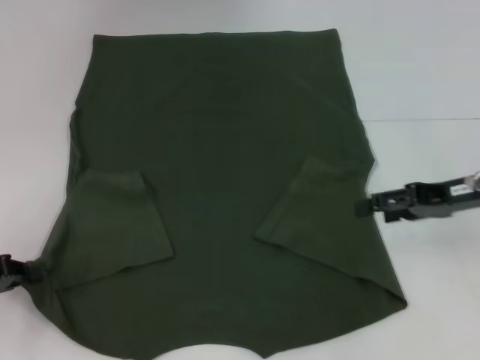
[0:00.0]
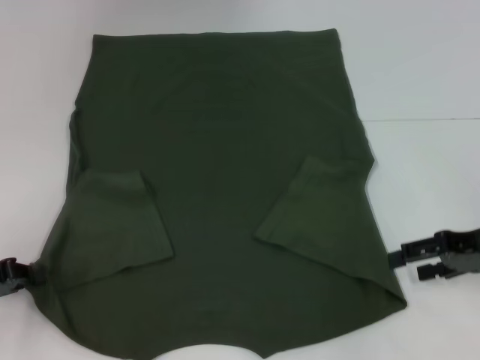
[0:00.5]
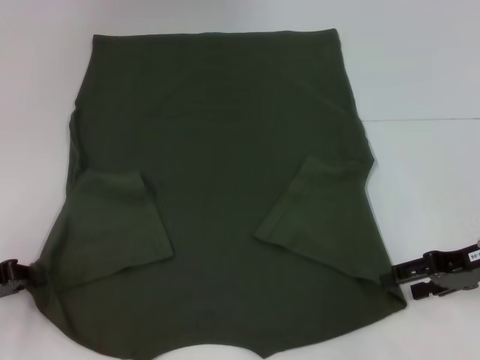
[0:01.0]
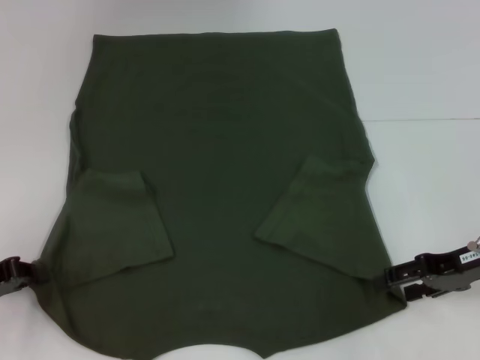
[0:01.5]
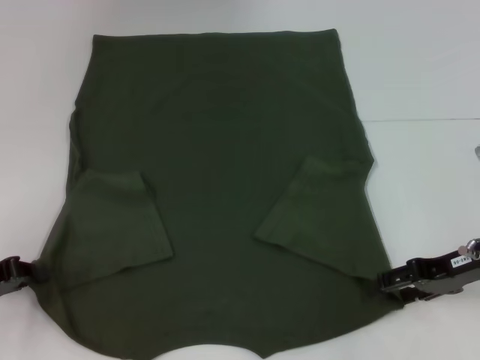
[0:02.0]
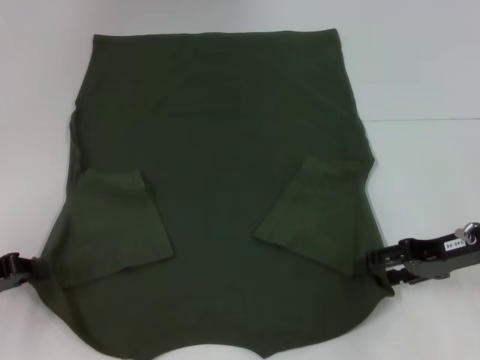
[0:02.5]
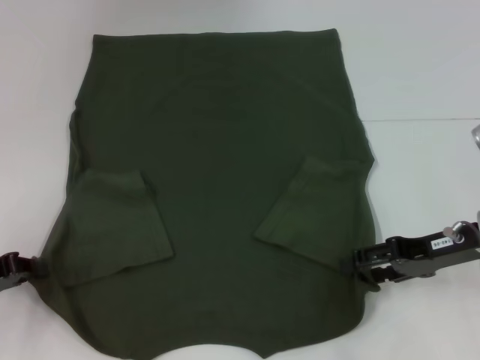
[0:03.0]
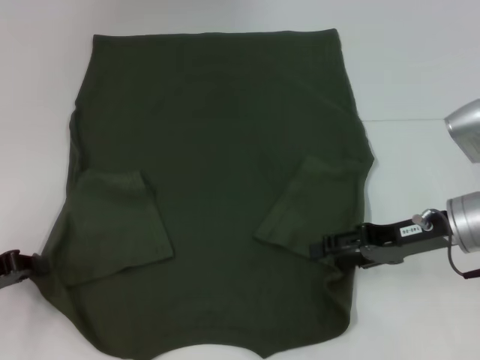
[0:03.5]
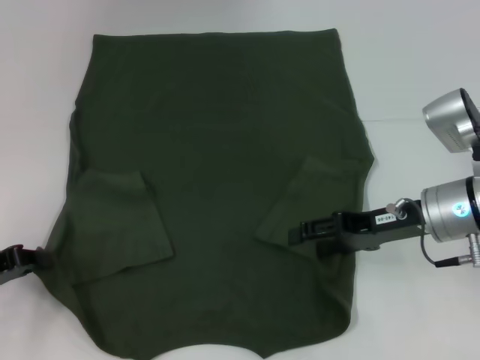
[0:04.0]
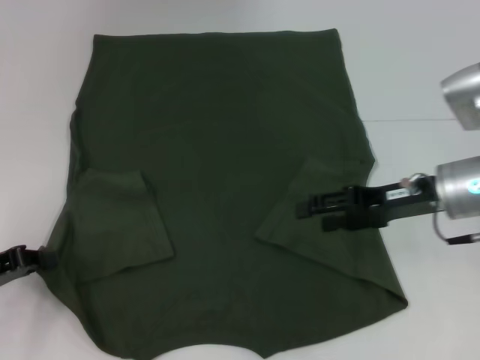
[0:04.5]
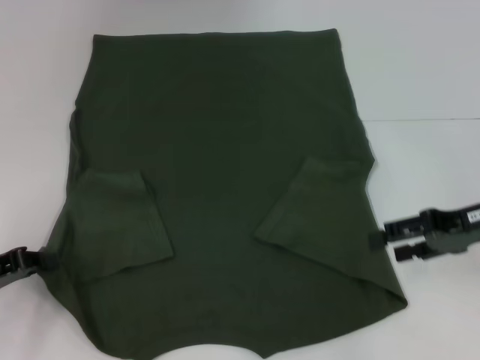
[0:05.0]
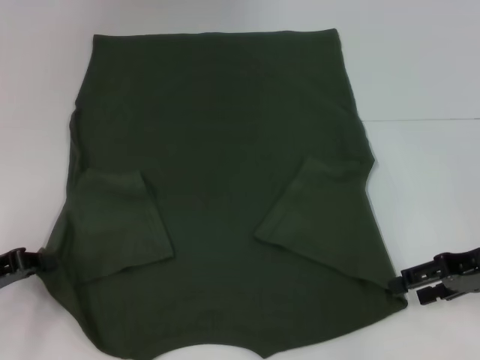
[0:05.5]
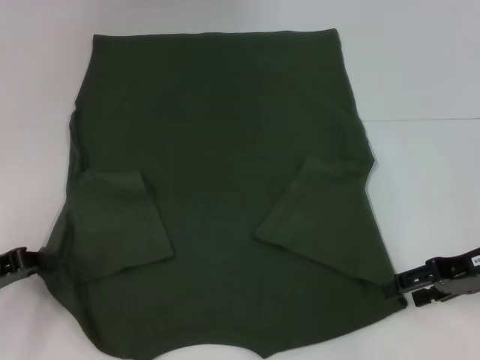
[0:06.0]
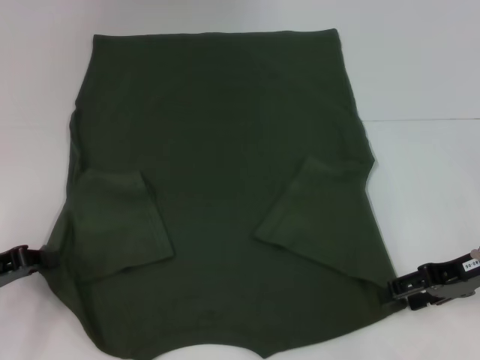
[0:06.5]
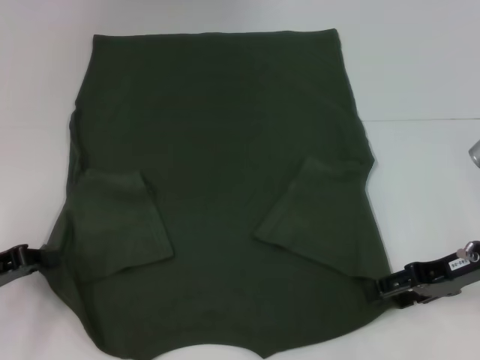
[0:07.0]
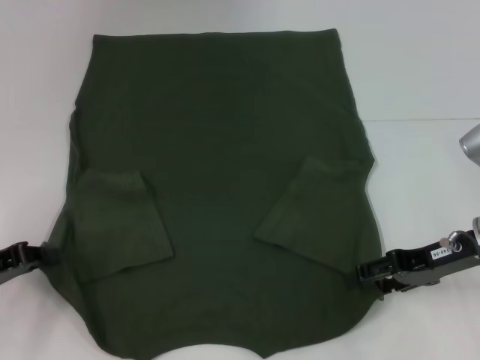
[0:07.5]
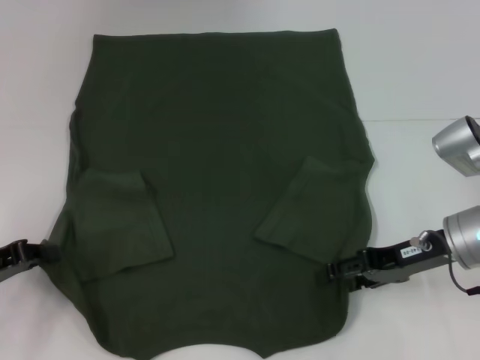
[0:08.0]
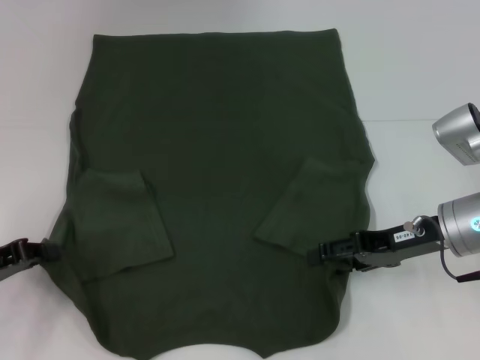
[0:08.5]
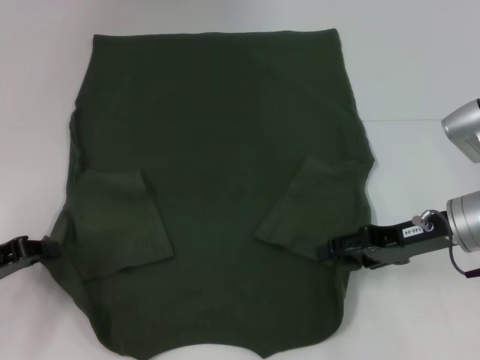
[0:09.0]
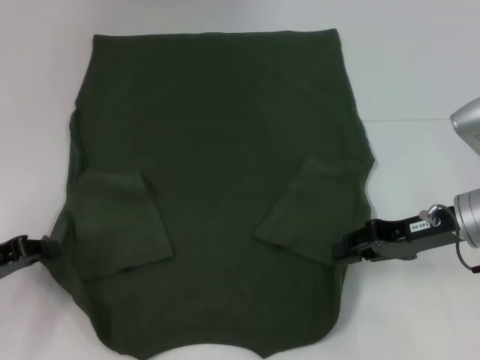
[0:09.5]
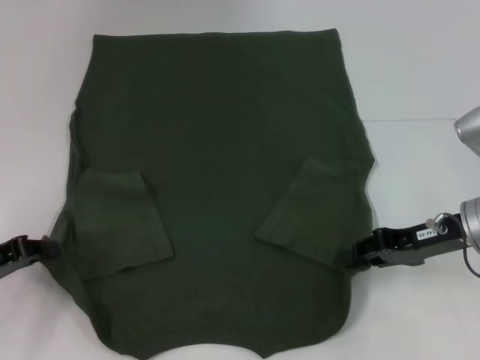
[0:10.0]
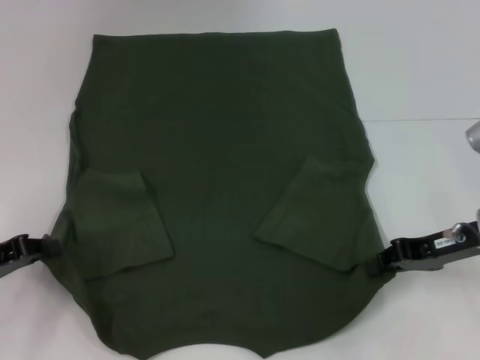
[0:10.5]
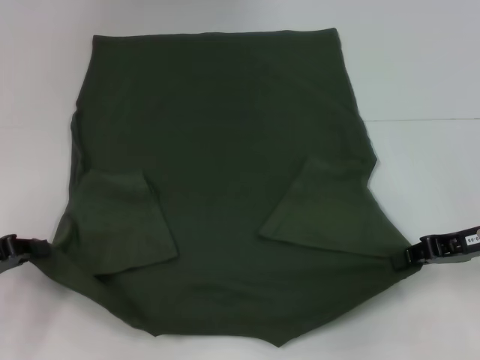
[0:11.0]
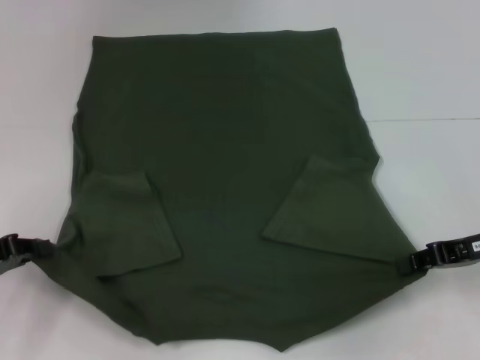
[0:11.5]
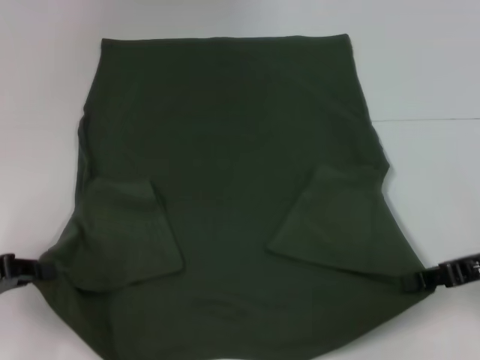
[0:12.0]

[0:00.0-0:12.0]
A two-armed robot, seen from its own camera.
Step, 0:01.0 to 0:08.5: Grab the bottom right corner with your right hand.
0:00.0 to 0:02.0: The right gripper changes place by about 5 cm.
0:02.0 to 0:04.0: The right gripper goes some 5 cm to the left.
0:04.0 to 0:06.0: The right gripper travels to the right by about 10 cm.
0:06.0 to 0:08.0: The right gripper is displaced to the left by some 5 cm.
0:08.0 to 0:10.0: The right gripper closes its fingers.
0:10.0 to 0:12.0: The right gripper shifts roughly 5 cm to the right.

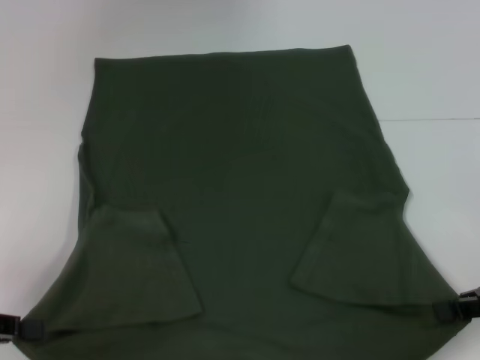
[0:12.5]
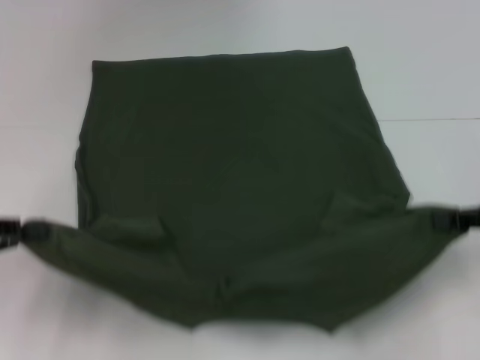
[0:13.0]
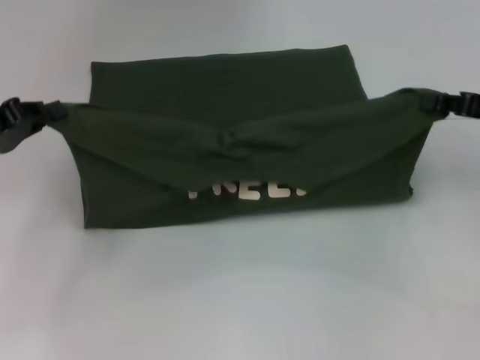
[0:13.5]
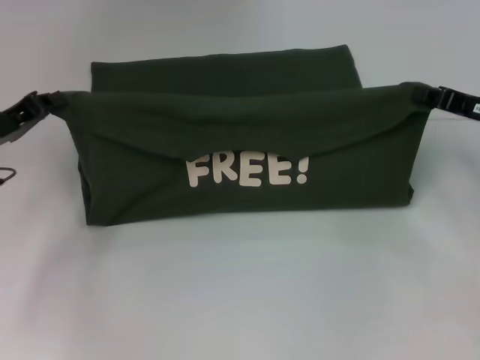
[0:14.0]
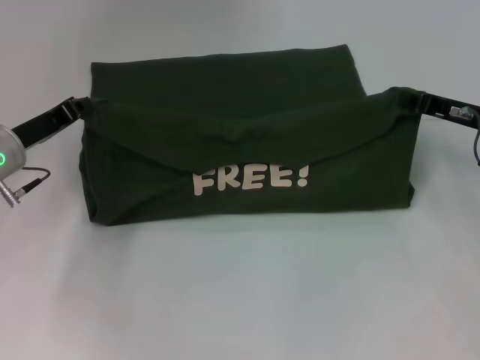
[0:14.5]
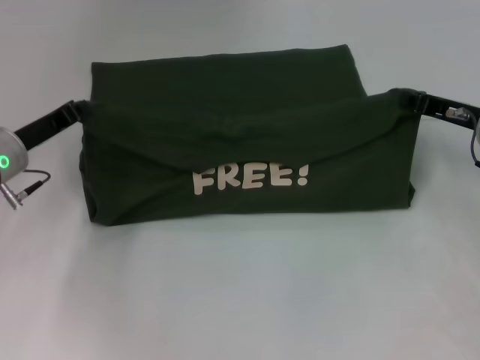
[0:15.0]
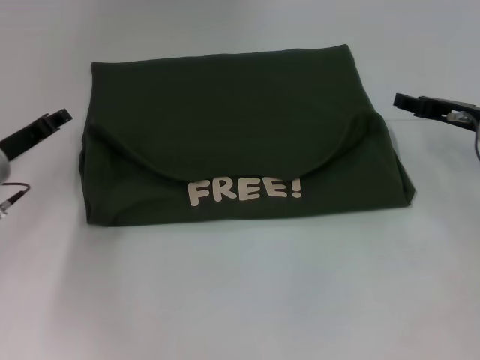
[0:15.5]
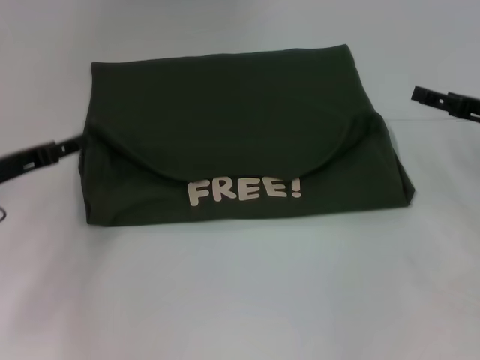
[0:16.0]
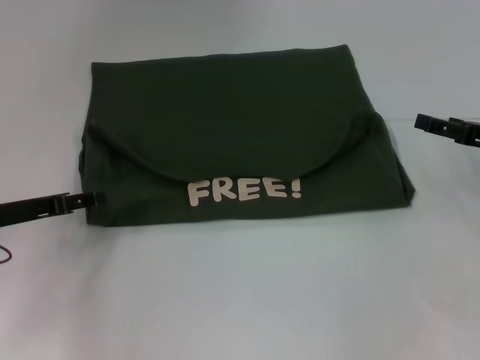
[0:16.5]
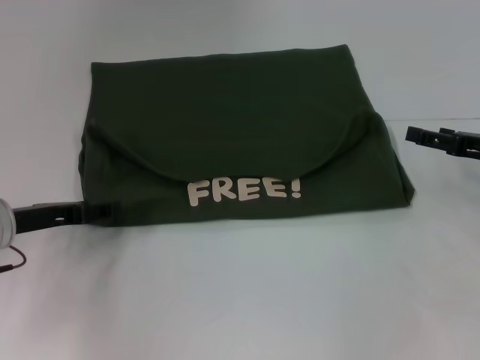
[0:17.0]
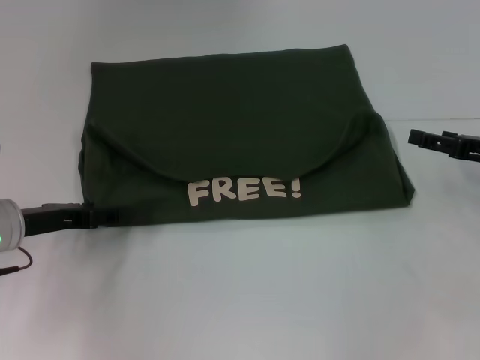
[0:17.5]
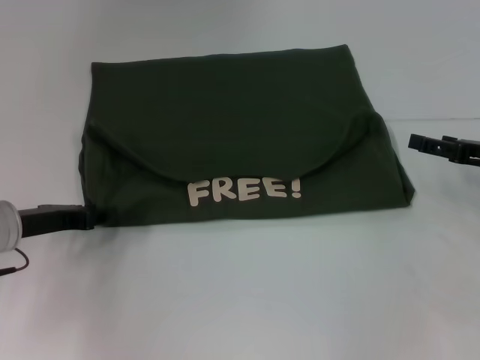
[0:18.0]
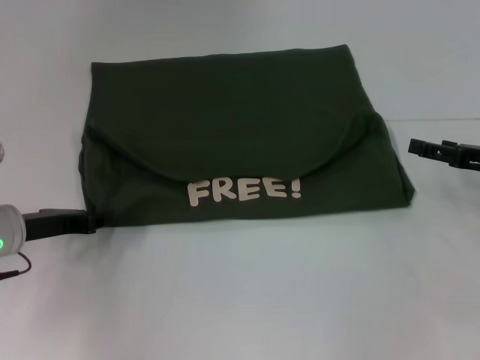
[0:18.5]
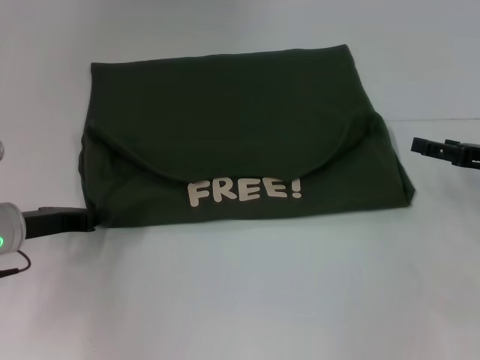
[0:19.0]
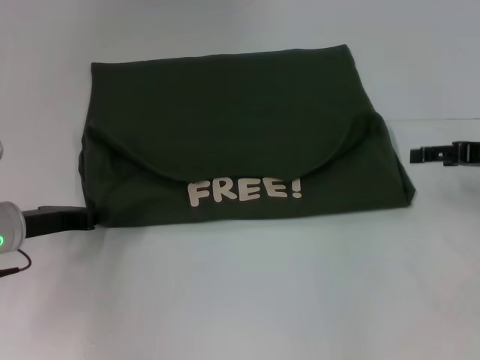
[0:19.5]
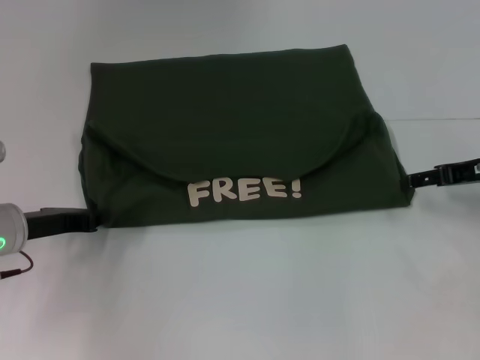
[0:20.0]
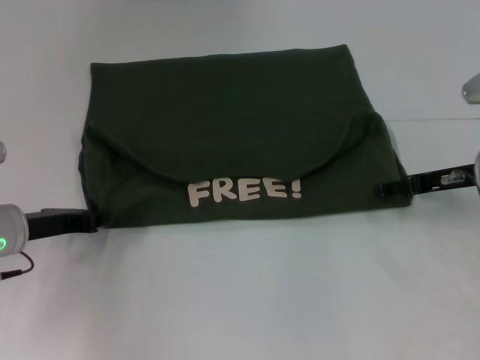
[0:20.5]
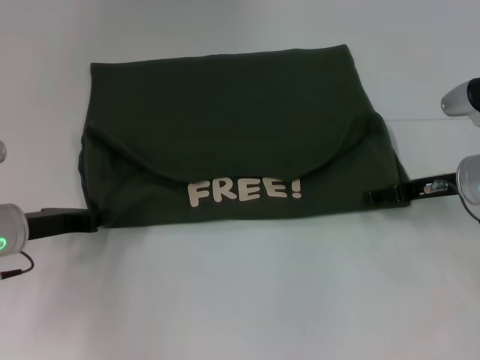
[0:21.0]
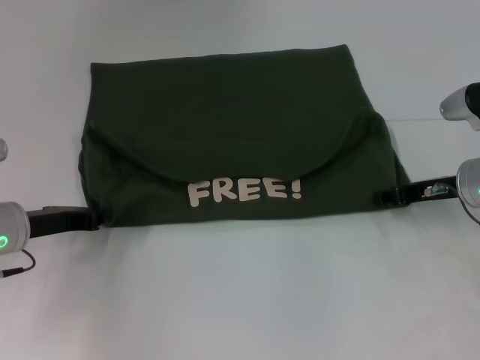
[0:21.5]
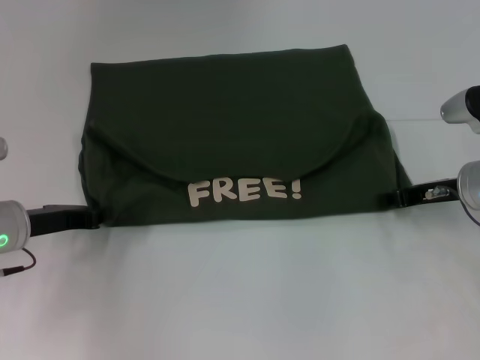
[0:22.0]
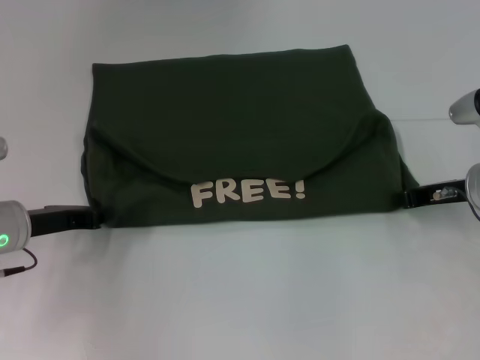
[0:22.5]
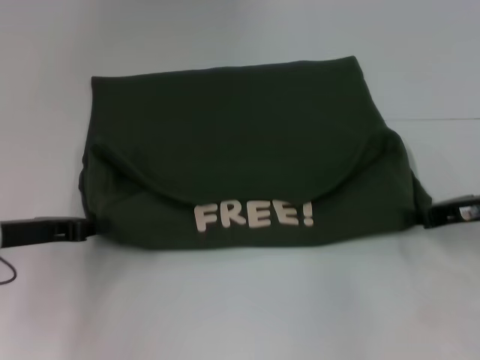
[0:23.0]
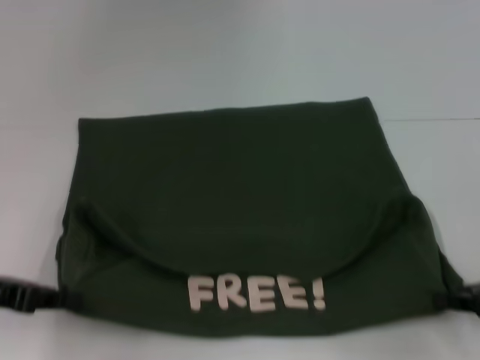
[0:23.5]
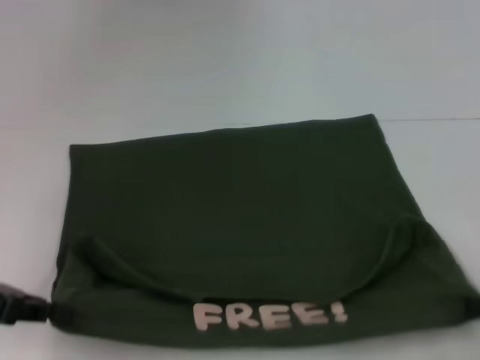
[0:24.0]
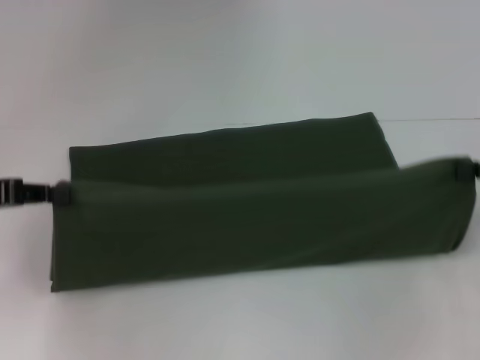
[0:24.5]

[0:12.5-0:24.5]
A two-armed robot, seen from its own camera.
Step, 0:12.5 to 0:15.5: Fold the clothes with your left hand.
Step, 0:12.5 to 0:15.5: Fold the clothes with your right hand.
Step, 0:16.0 to 0:23.5: Pull the clothes with your left hand.
Step, 0:16.0 to 0:23.5: Pull the clothes with your right hand.
0:12.5 to 0:14.5: The left gripper is displaced forward and to the right by roughly 20 cm. Meanwhile the right gripper shifts roughly 15 cm forward and to the left.
0:14.5 to 0:16.5: The left gripper moves backward, roughly 5 cm, and opens; the right gripper moves some 5 cm, and opens up.
0:16.5 to 0:18.5: The left gripper closes its fingers.
0:18.5 to 0:20.5: The right gripper heads to the left, covering roughly 5 cm.
0:20.5 to 0:22.5: The right gripper closes its fingers.
0:22.5 to 0:24.5: The right gripper travels to the right, upward and backward by about 15 cm, while the left gripper heads upward and to the left, covering about 10 cm.

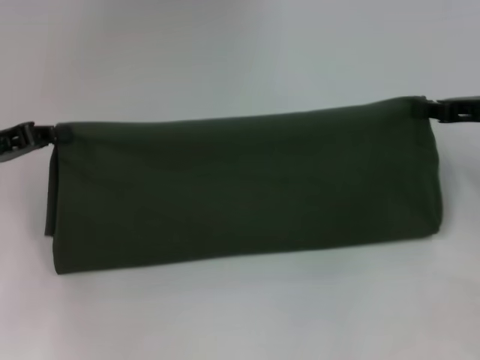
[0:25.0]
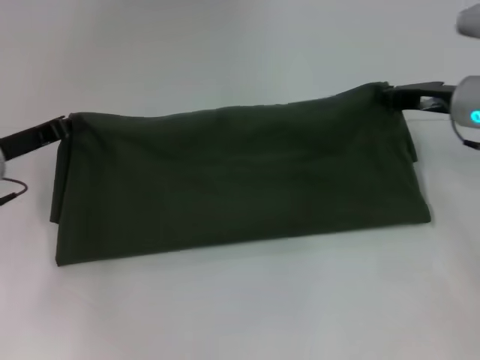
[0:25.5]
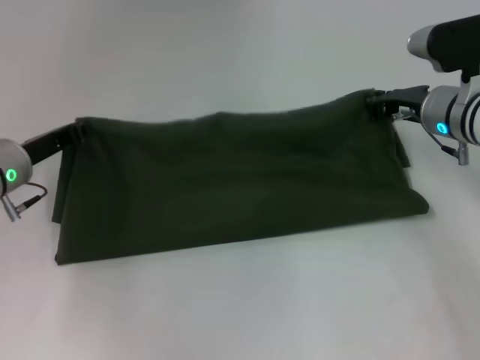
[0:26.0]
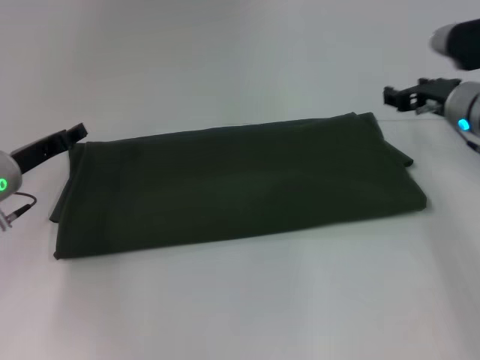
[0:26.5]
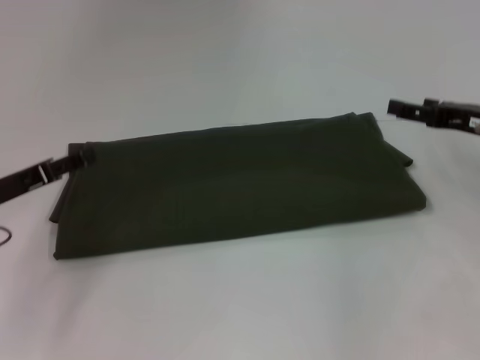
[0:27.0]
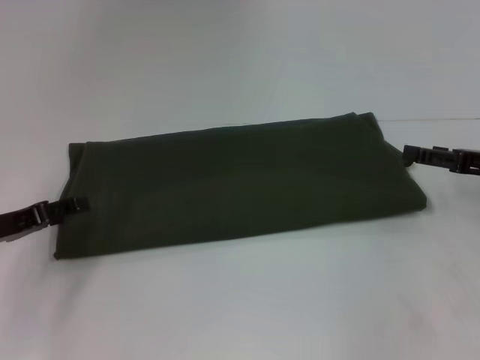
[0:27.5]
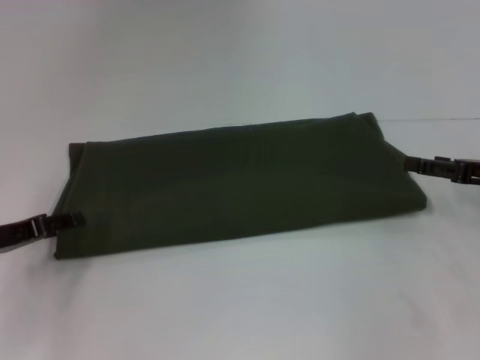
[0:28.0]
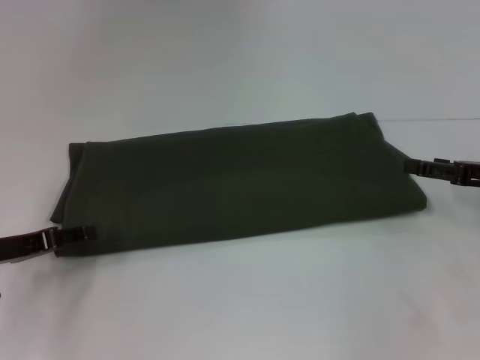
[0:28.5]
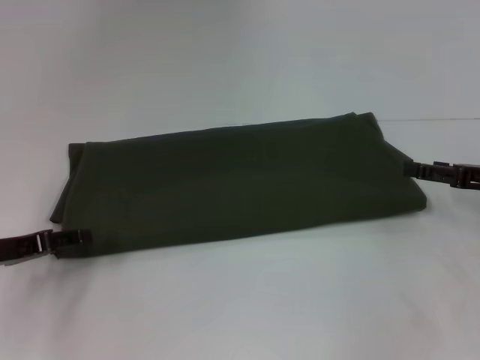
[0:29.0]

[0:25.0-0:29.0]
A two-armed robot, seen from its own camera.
Step, 0:25.0 to 0:26.5: Fold the clothes with your right hand.
0:25.0 to 0:27.0: The left gripper travels downward by about 5 cm, and opens up. The right gripper goes to the left and returns, about 10 cm each way, and opens up.
0:27.0 to 0:29.0: The right gripper shifts by some 5 cm.
